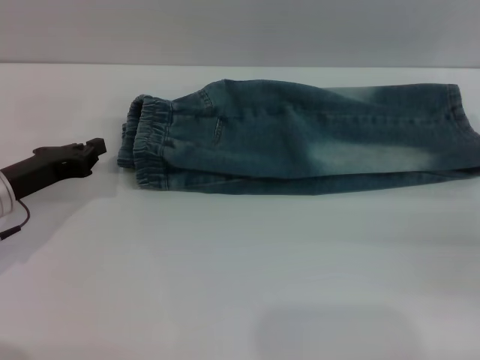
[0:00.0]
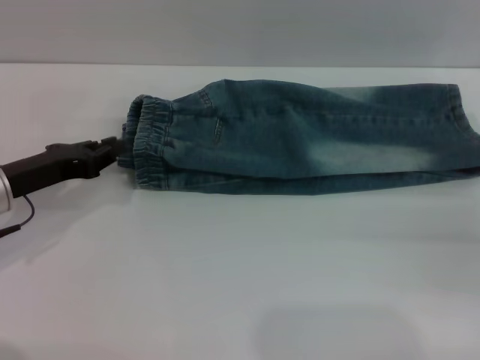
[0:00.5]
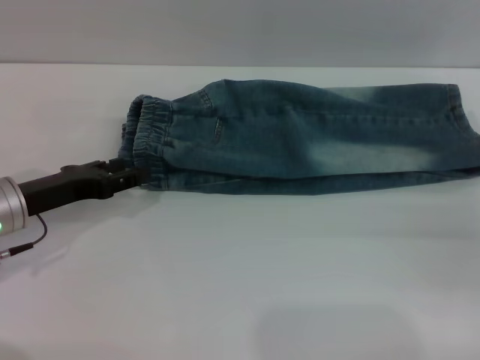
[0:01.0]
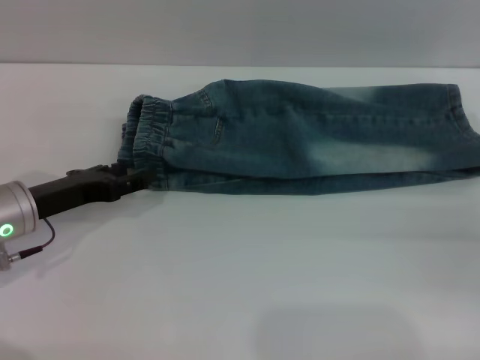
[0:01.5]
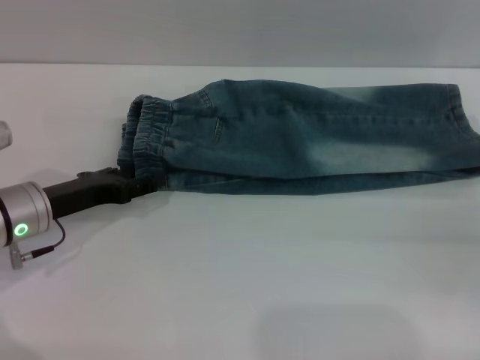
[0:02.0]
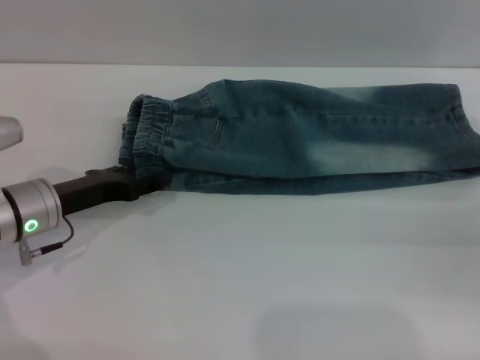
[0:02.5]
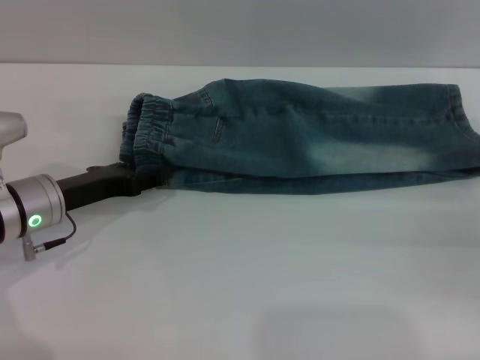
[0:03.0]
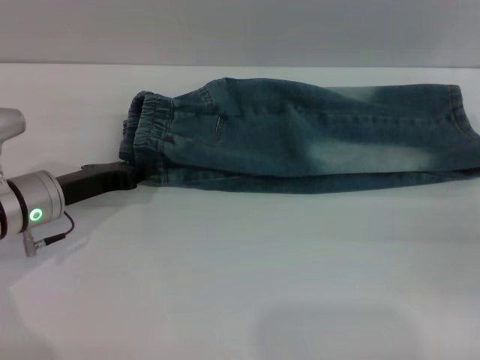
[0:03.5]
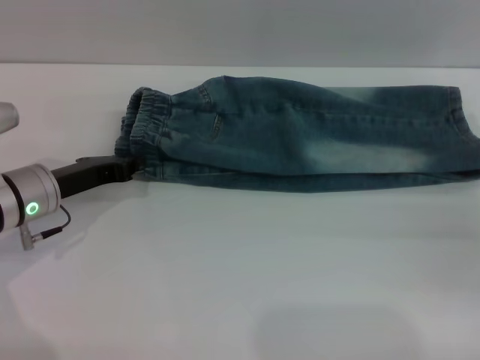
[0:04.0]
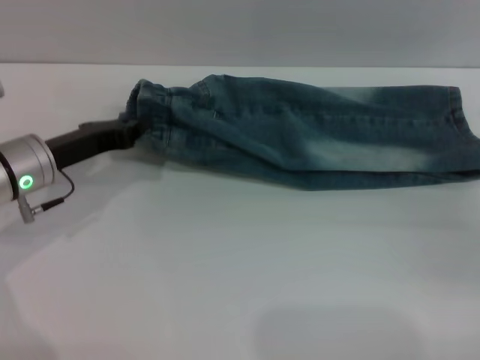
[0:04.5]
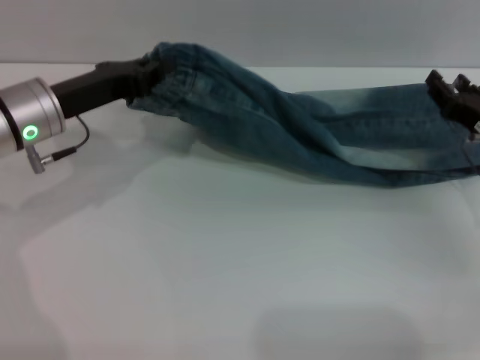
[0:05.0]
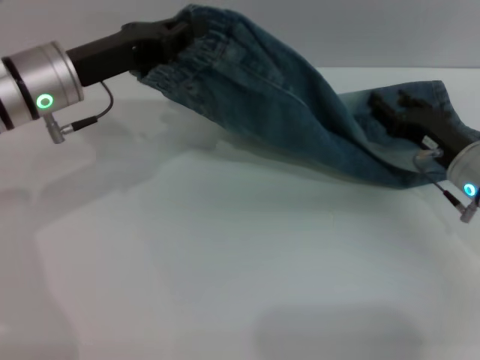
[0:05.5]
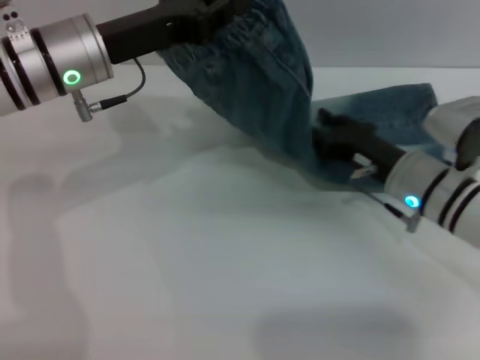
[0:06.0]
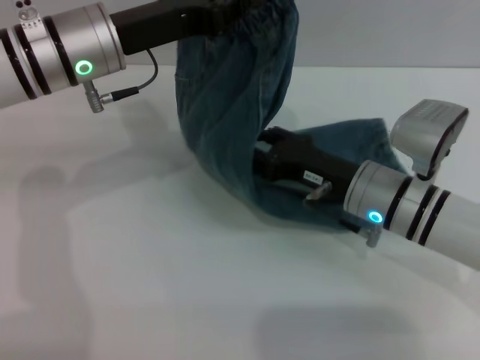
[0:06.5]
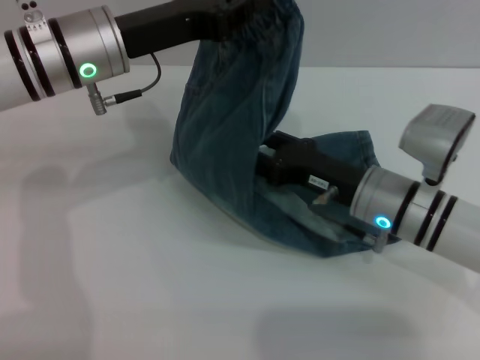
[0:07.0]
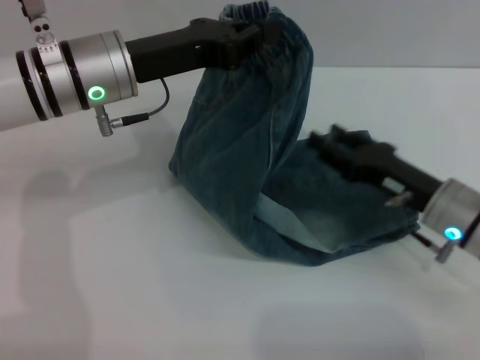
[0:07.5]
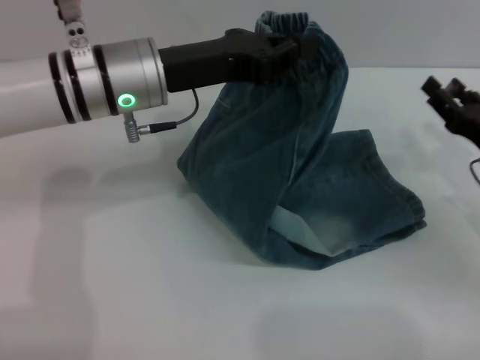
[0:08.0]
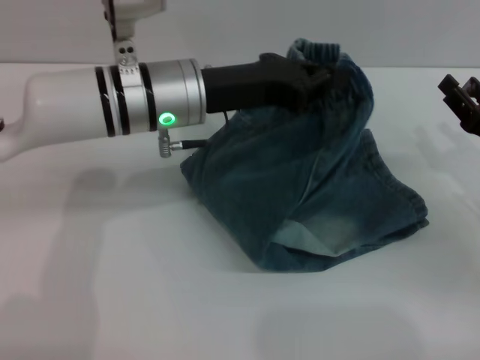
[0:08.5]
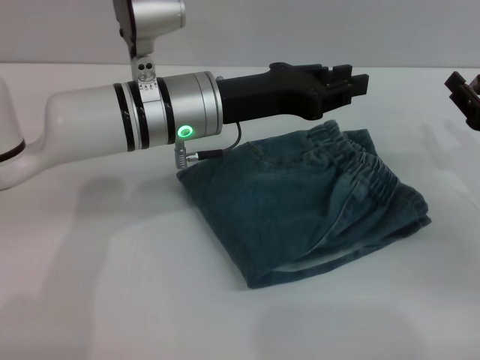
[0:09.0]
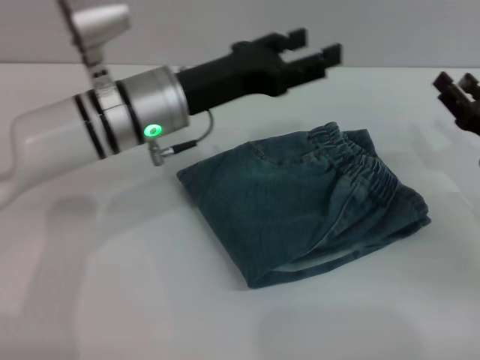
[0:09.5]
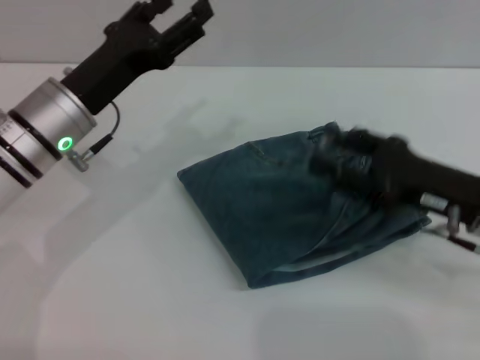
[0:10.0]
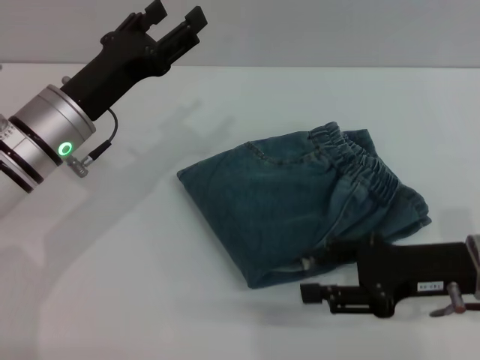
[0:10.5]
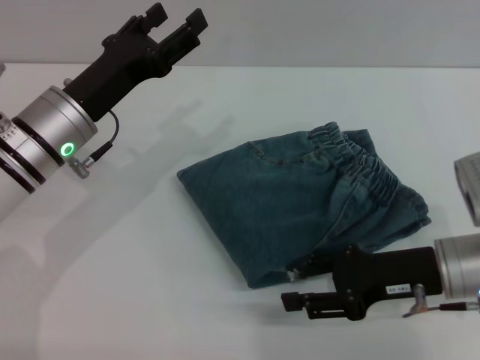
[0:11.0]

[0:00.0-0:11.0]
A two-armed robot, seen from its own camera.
Step, 0:00.0 to 0:09.0: Fold the pants from left to right with the left gripper.
0:00.0 to 0:02.0: The left gripper opens.
0:02.0 to 0:03.5: The left gripper closes.
0:03.5 to 0:05.5: The left gripper is displaced upward by about 10 cm, and closes up, while the right gripper shifts some 10 cm to the left.
0:05.5 to 0:07.5: The right gripper reaches some 10 cm to the left, then returns. The left gripper shifts by roughly 5 cm.
0:07.5 to 0:09.0: Both grippers move to the right, roughly 10 cm.
0:09.0 to 0:11.0: The grippers both shift to the left by about 10 cm. The left gripper opens up.

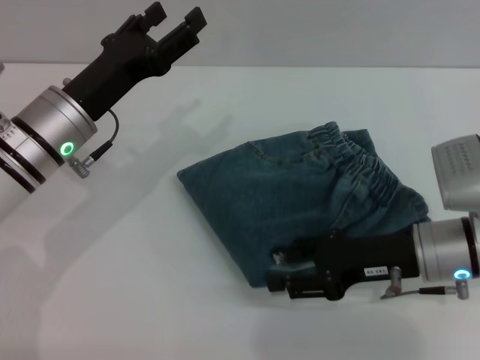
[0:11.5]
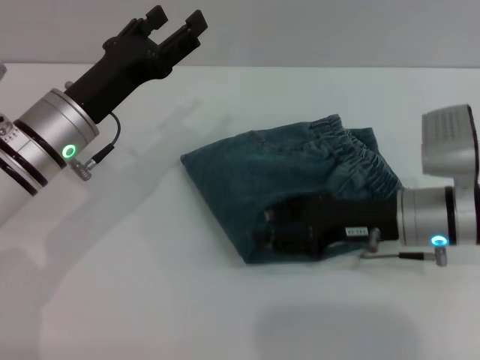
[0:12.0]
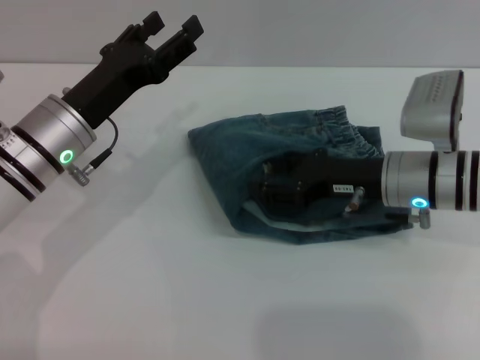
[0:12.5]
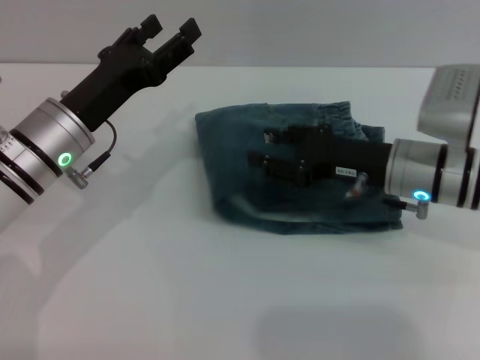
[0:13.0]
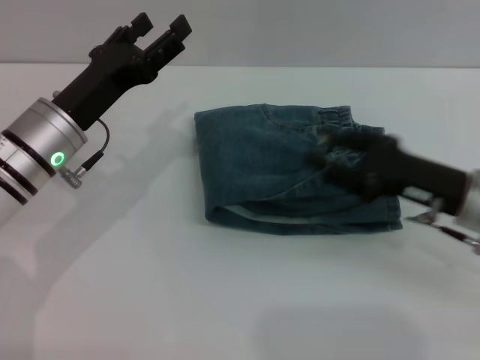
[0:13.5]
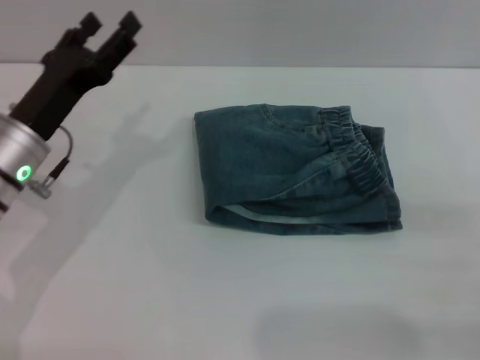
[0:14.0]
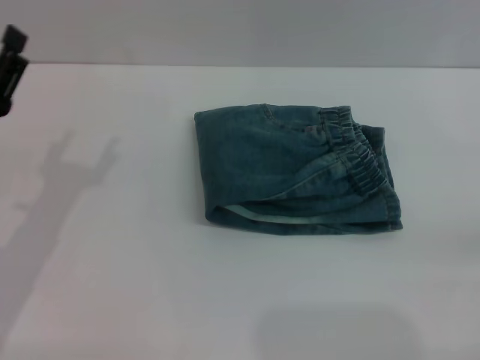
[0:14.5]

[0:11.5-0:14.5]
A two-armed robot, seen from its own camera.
Step, 0:11.5 to 0:13.5: Place the folded trousers onto the center area with the right grippers.
0:11.5 to 0:13.0: The right gripper moves forward, roughly 5 cm.
0:13.0 to 0:14.5: The right gripper heads to the right and backward, covering some 25 cm. The left gripper travels to the left and backward by some 10 cm.
